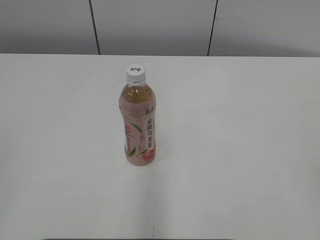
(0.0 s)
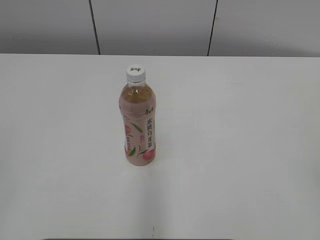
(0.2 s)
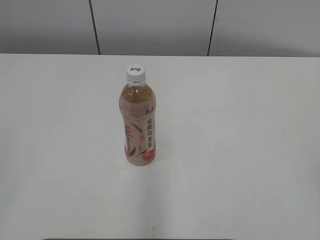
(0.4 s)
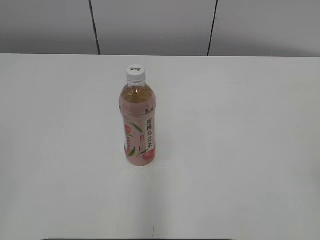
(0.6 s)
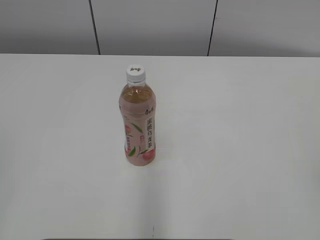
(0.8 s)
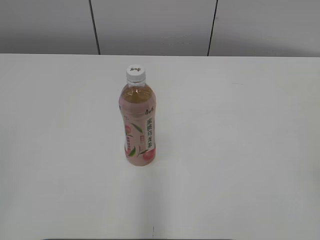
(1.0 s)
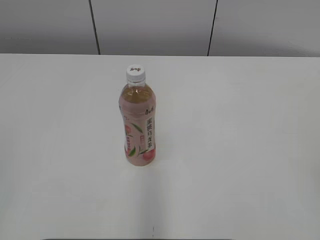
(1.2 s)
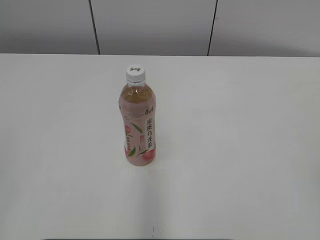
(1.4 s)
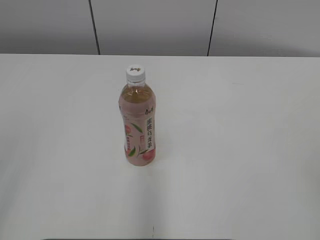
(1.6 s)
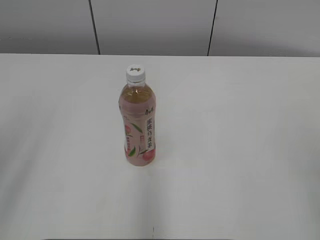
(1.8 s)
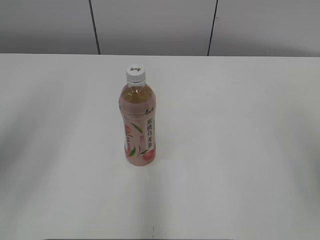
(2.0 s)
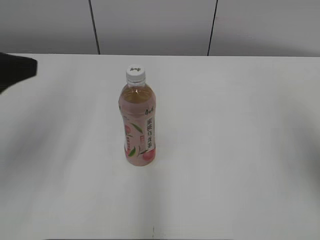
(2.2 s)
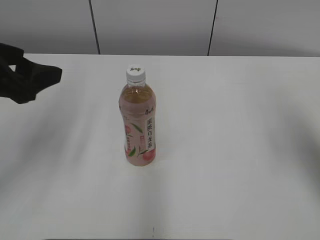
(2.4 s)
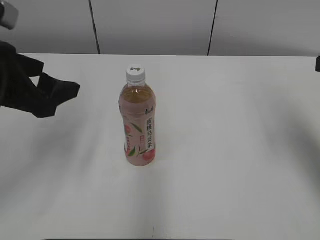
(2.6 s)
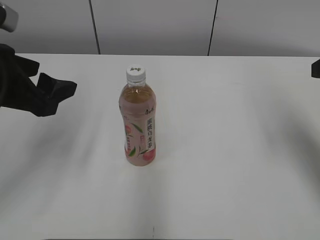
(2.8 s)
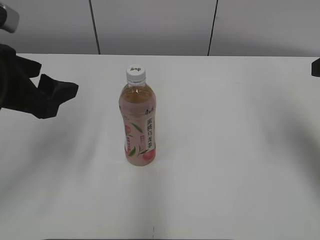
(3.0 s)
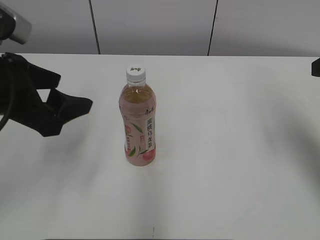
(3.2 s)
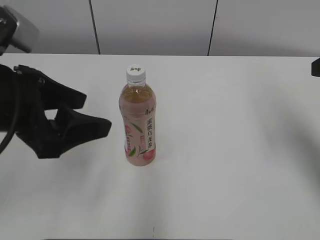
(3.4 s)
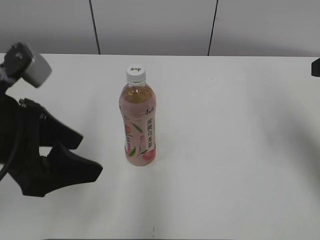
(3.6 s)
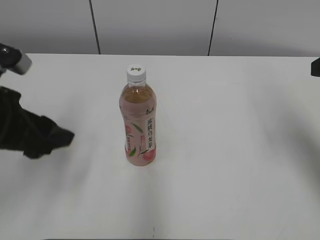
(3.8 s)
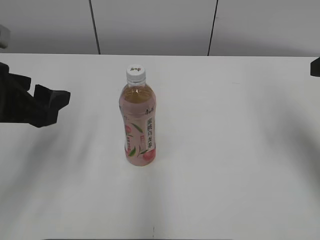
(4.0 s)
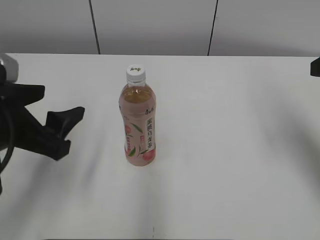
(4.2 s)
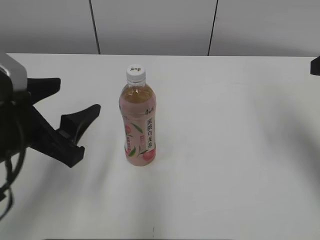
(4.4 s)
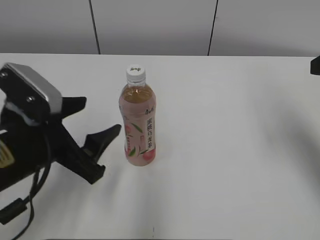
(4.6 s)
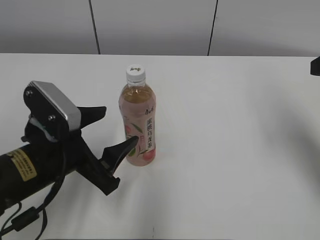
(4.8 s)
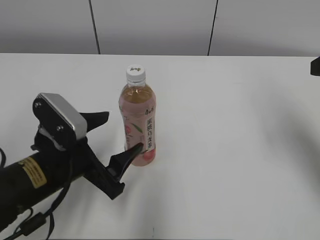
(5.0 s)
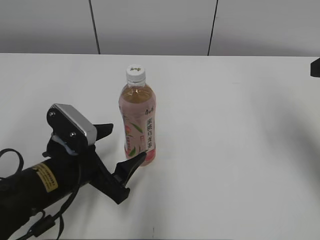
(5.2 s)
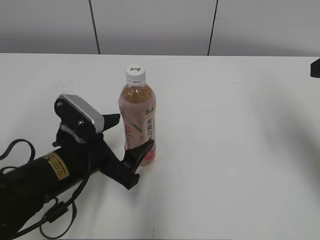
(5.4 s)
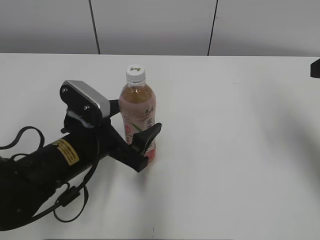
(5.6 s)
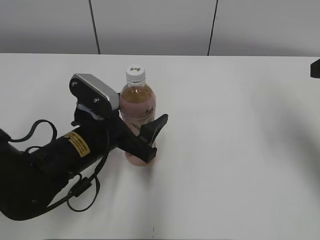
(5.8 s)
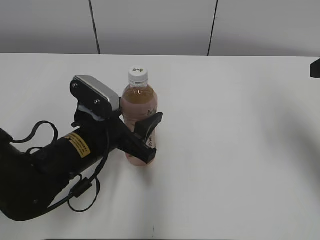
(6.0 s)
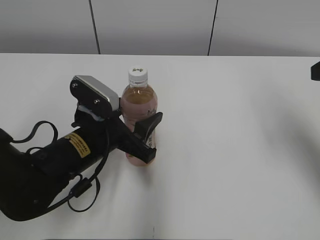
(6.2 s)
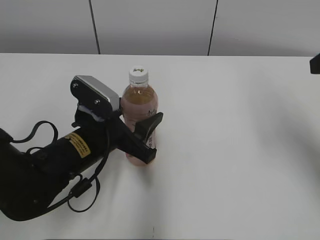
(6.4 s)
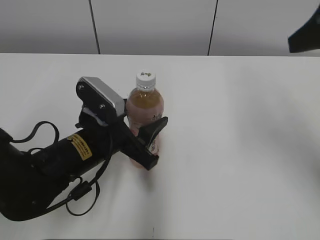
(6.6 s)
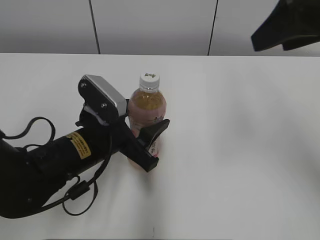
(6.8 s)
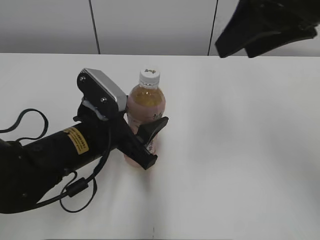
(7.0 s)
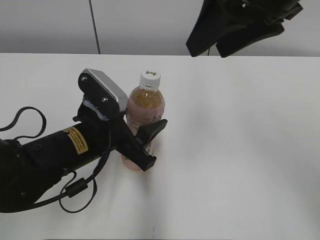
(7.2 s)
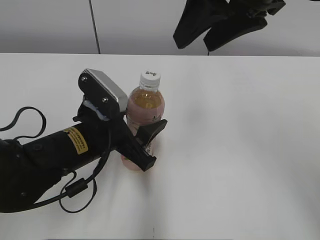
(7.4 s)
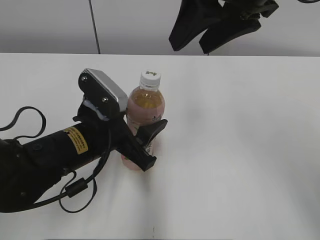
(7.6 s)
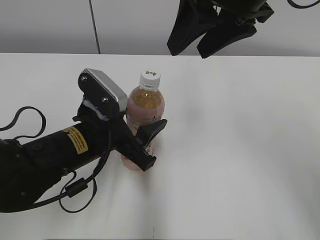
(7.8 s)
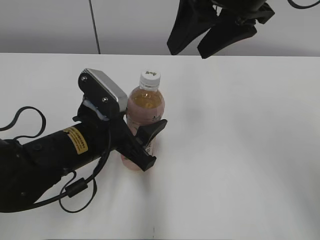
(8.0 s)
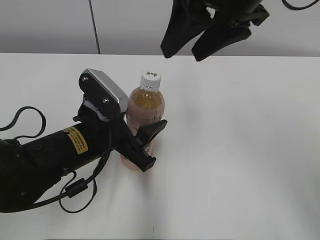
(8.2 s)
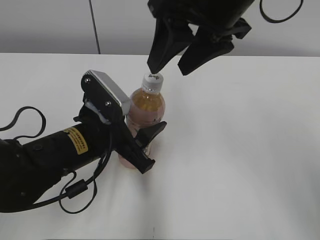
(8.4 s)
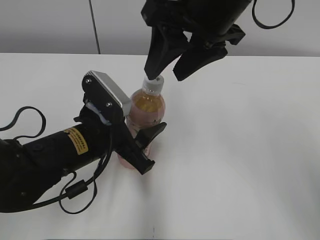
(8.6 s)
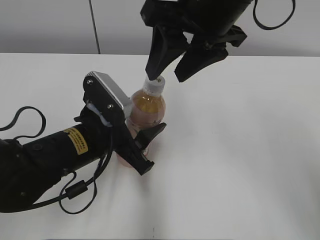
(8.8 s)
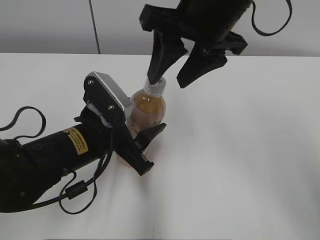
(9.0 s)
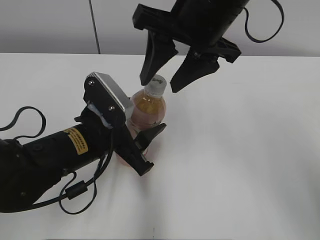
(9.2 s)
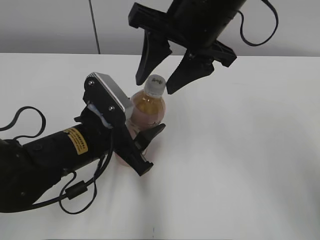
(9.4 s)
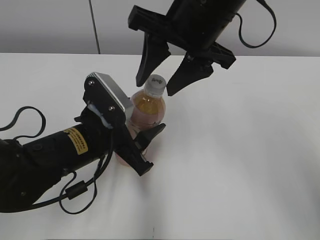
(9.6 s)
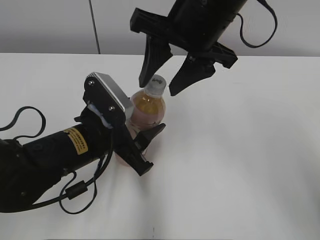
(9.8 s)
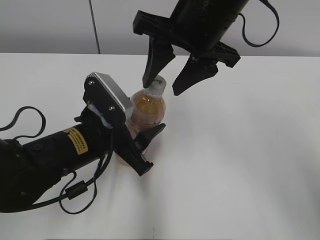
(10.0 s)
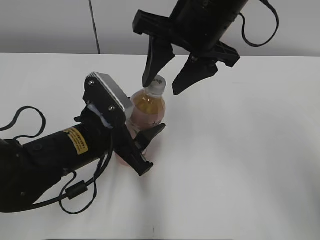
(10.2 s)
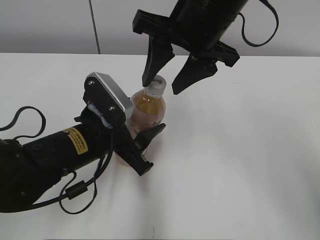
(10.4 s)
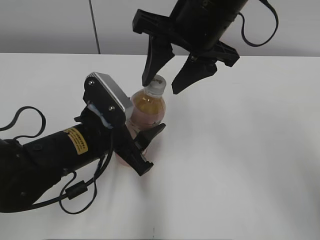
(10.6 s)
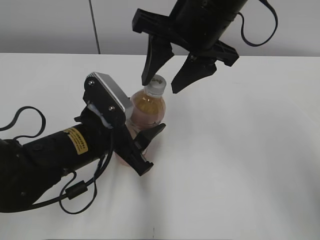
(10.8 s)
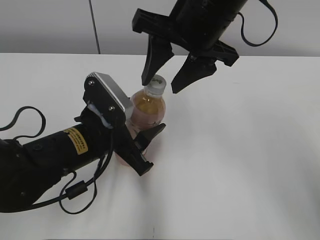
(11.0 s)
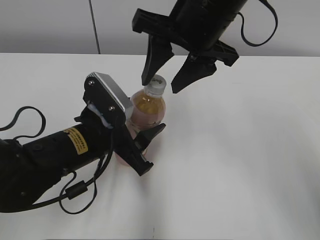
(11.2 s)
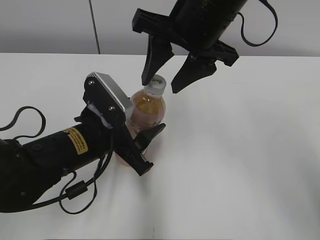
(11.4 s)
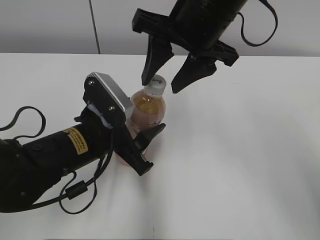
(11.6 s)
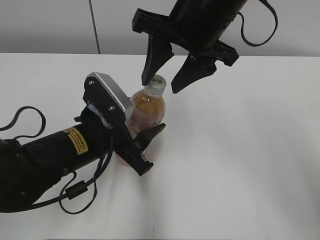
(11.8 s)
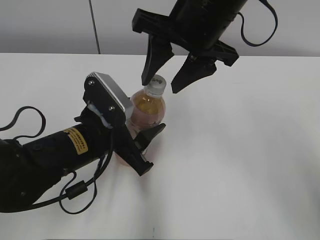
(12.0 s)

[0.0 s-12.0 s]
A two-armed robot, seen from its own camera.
Step, 0.0 to 6.2 s: Grab the Peach Oolong Tea with the left hand.
1.6 to 3.0 s: The two grippers go roughly 25 cm forward. The left gripper opens up.
3.0 to 4.4 s: The left gripper moves about 5 cm.
4.4 to 6.0 s: The left gripper moves downward, to the right and forward, about 15 cm.
6.0 to 7.6 s: The right gripper shifts about 20 cm to the left and upward.
7.6 to 9.0 s: The right gripper moves about 5 cm.
9.0 to 10.4 s: The grippers make only small movements.
10.4 to 12.0 s: The two grippers keep their place.

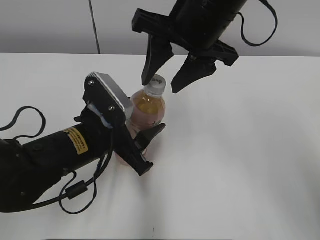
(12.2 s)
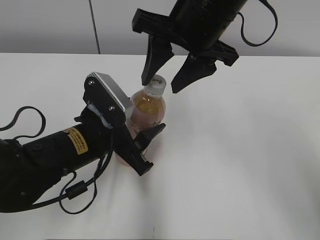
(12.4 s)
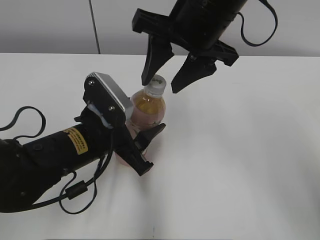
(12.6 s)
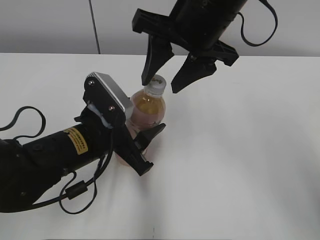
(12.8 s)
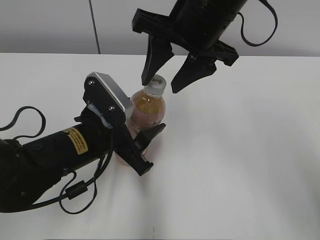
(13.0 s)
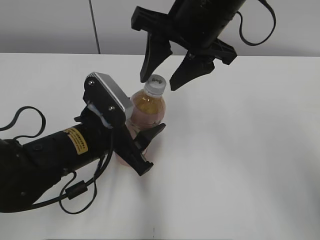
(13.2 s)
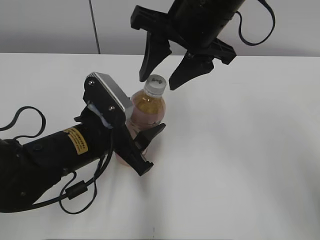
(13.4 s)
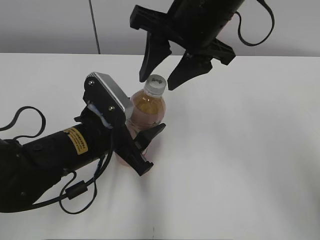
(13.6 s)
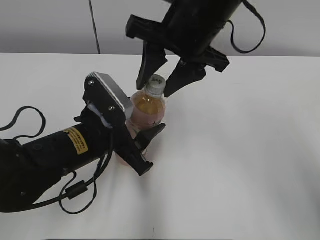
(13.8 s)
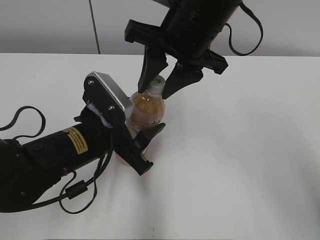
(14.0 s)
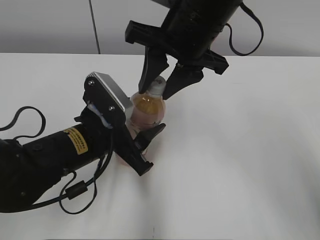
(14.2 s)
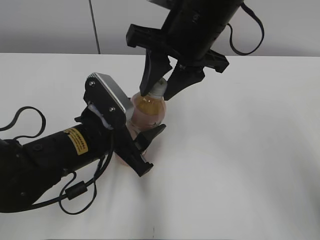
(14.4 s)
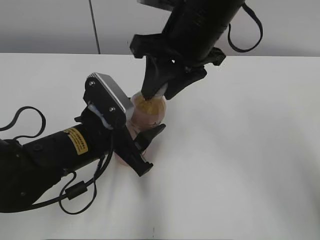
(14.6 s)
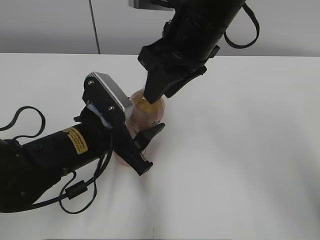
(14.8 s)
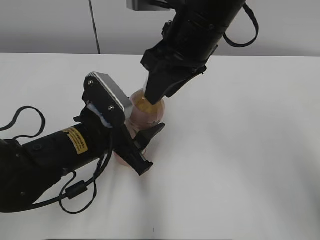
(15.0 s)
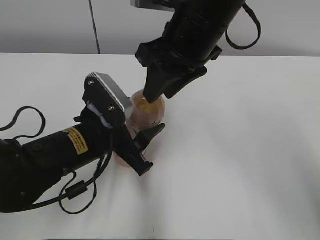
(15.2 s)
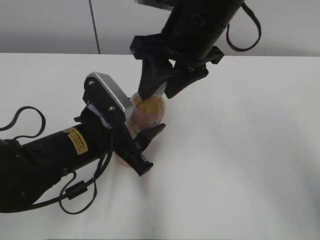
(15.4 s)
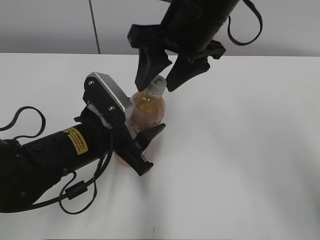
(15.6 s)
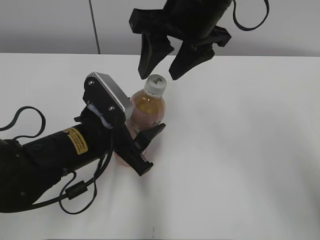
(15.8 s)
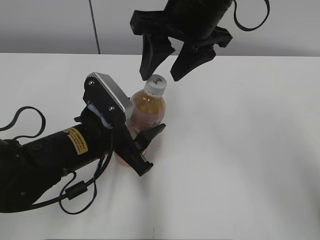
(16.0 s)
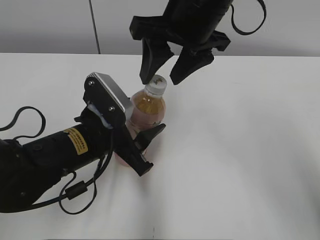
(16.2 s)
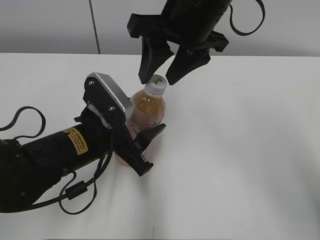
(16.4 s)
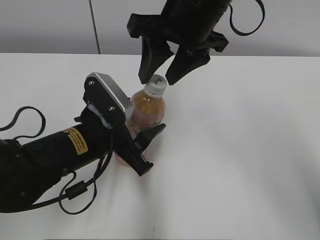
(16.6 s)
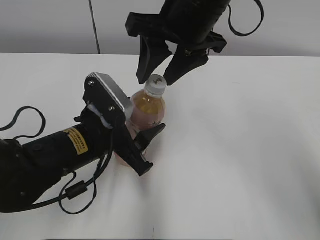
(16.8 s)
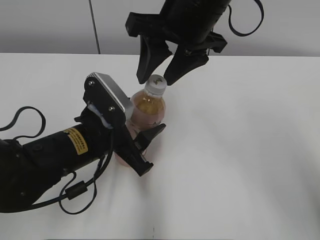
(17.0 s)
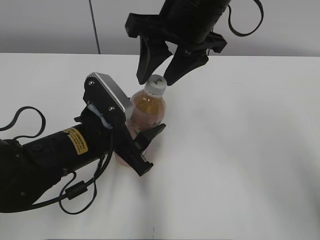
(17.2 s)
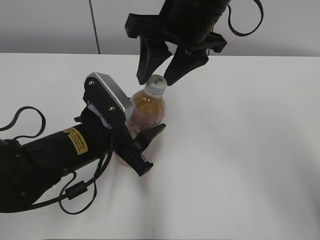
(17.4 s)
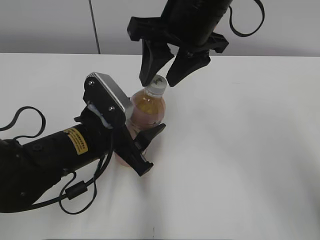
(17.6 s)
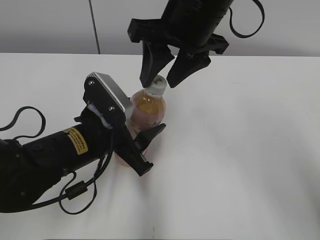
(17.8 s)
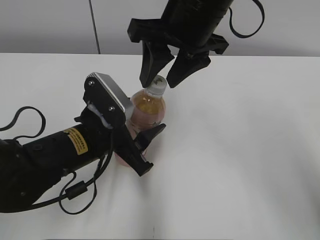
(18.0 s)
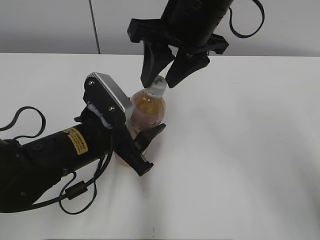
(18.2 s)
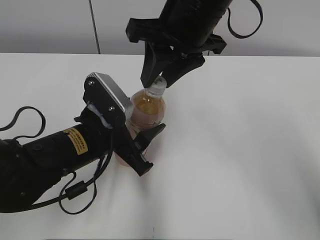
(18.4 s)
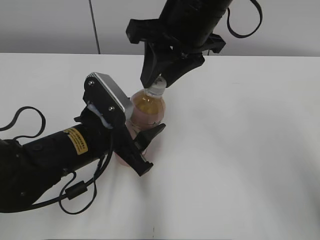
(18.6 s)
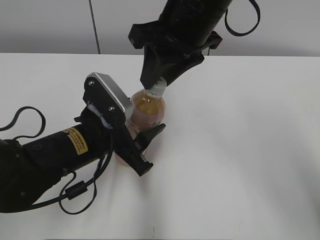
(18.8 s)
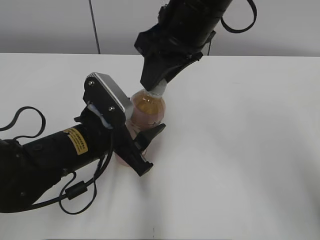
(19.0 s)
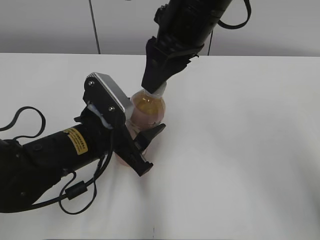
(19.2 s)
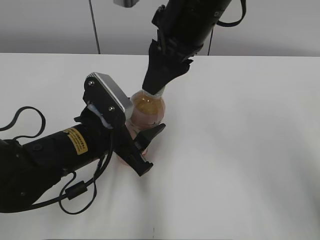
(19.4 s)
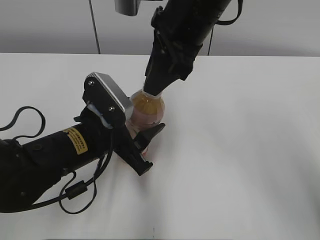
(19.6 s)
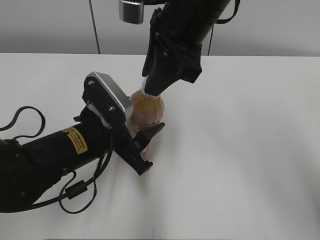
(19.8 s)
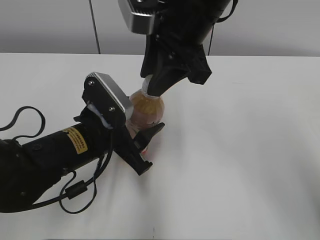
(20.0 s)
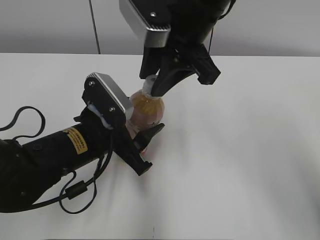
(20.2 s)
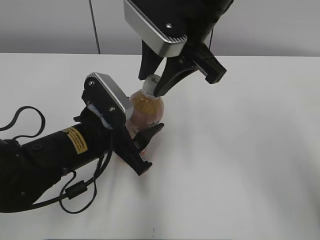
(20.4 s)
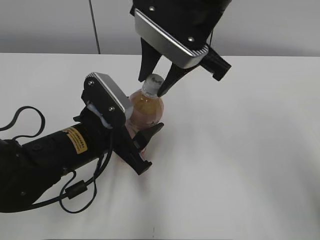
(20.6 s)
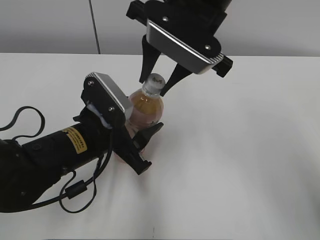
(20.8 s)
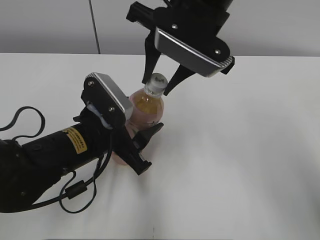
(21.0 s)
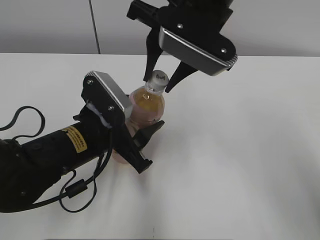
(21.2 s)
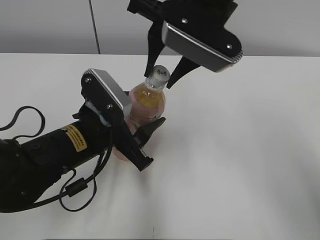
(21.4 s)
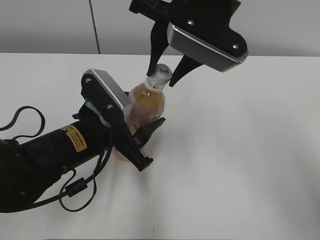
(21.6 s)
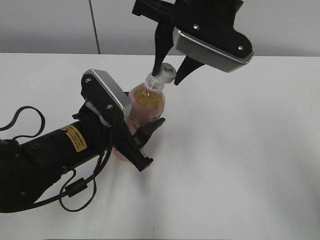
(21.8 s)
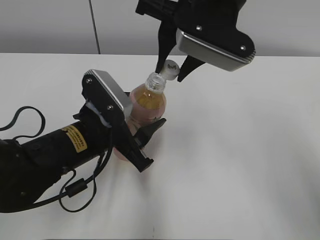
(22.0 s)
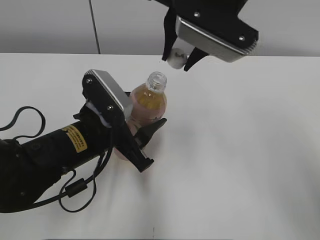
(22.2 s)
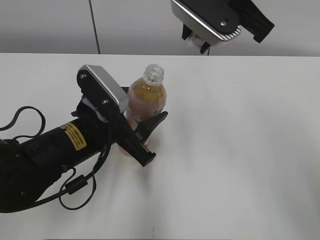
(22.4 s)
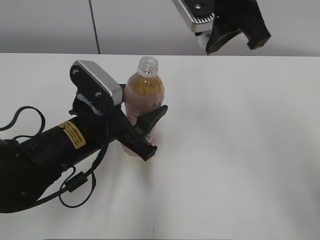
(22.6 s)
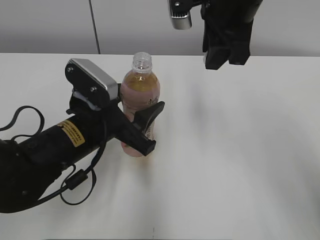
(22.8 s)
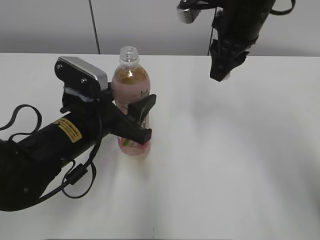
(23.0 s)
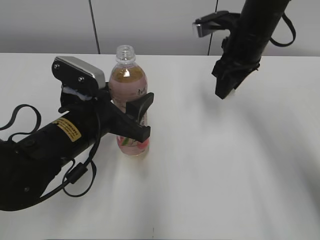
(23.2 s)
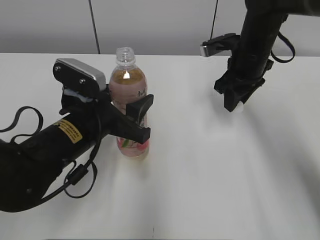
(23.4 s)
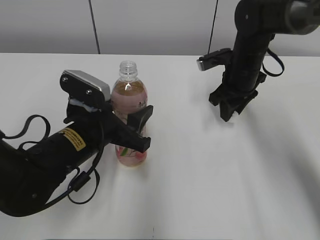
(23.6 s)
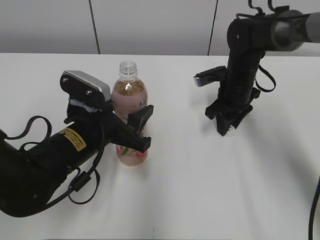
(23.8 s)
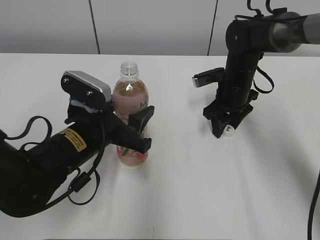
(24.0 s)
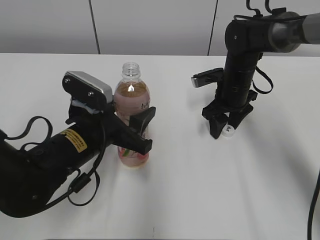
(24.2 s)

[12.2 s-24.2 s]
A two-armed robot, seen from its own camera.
Step, 21.8 to 23.8 s: Place the bottle cap on the right.
12.2 to 13.8 s: Both grippers stay put.
13.8 to 15.2 s: The right gripper closes up.
15.2 to 16.6 s: The right gripper opens its fingers.
16.6 to 18.2 s: Neither gripper changes place.
18.2 to 19.8 s: The right gripper closes its fingers.
21.2 to 22.6 s: The right gripper changes place by roughly 5 cm.
22.6 to 24.2 s: The right gripper shifts some 25 cm downward and forward, and opens its fingers.
